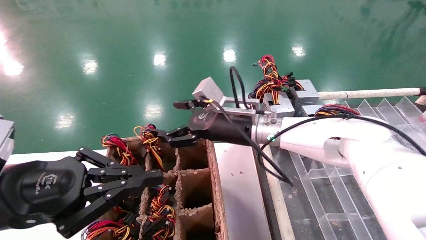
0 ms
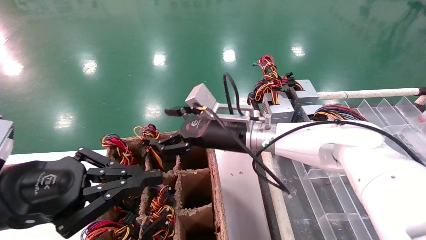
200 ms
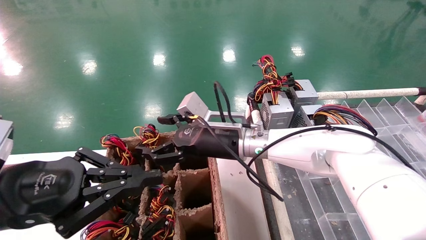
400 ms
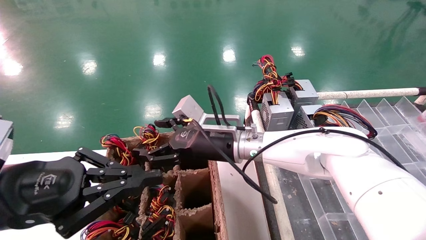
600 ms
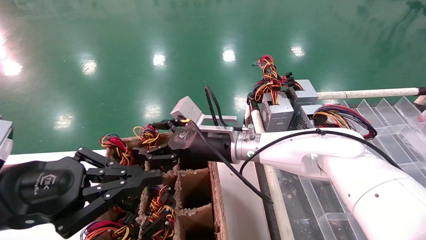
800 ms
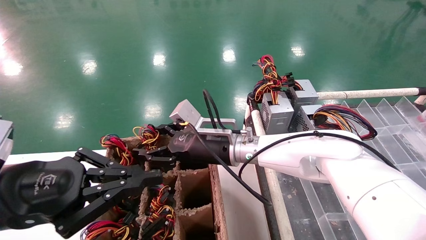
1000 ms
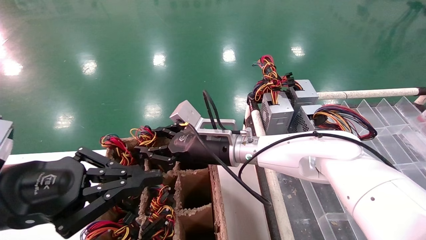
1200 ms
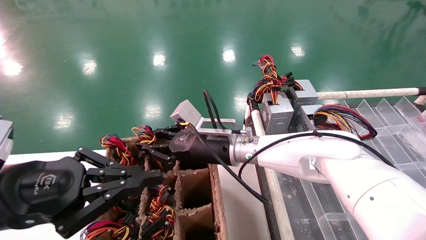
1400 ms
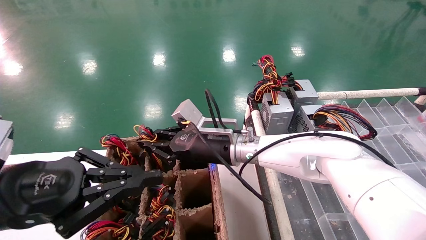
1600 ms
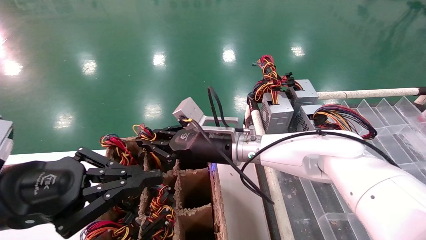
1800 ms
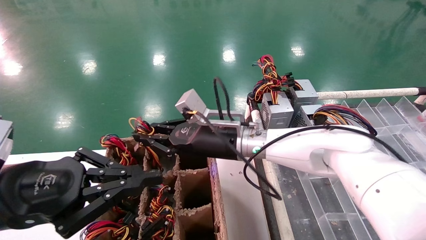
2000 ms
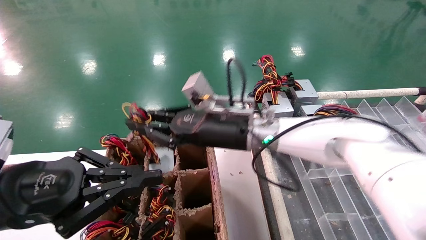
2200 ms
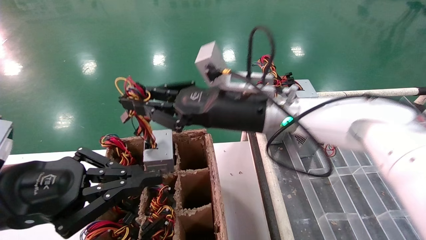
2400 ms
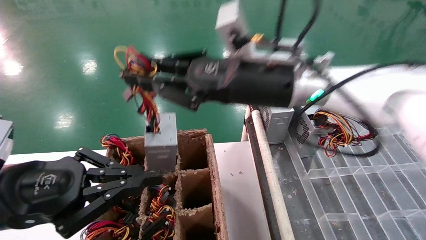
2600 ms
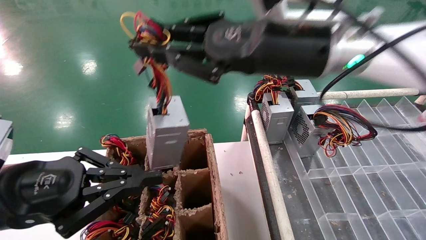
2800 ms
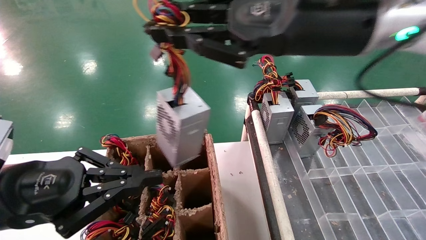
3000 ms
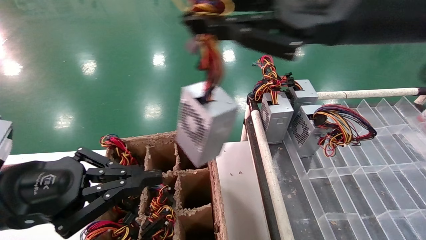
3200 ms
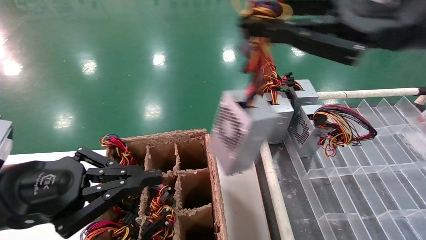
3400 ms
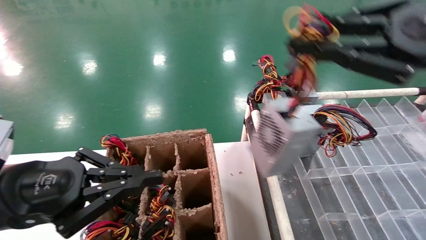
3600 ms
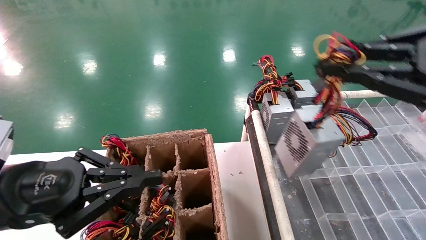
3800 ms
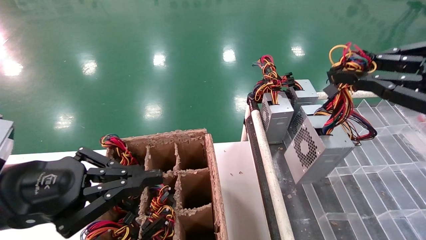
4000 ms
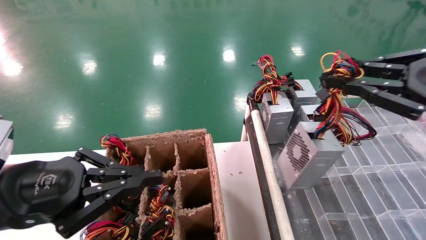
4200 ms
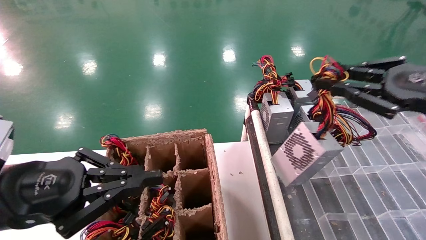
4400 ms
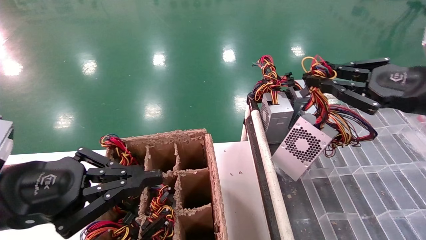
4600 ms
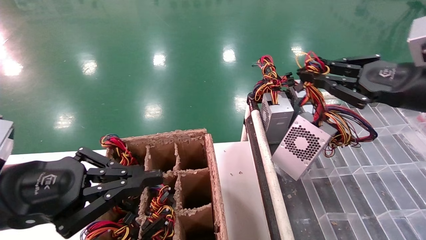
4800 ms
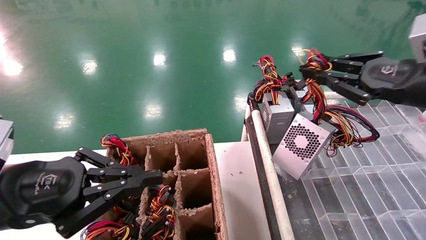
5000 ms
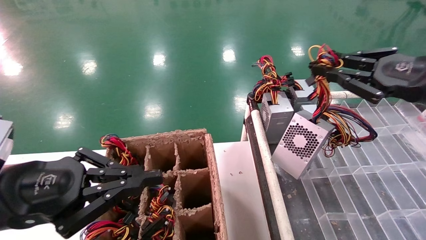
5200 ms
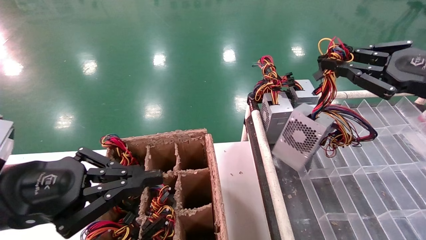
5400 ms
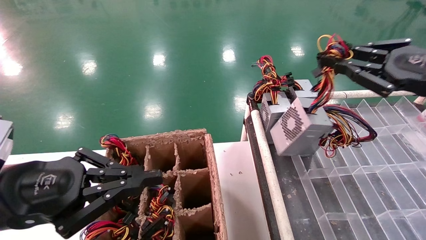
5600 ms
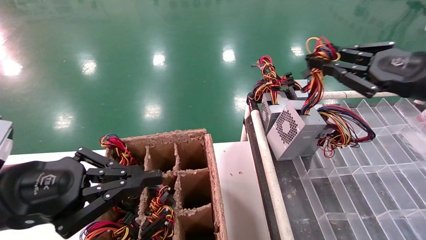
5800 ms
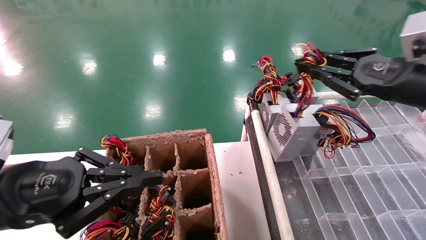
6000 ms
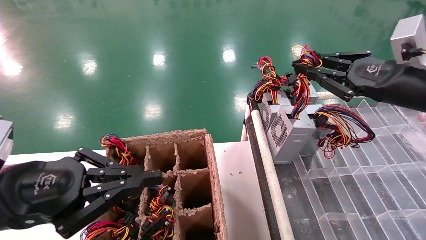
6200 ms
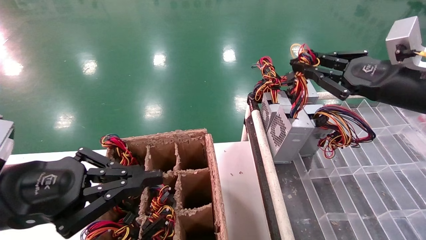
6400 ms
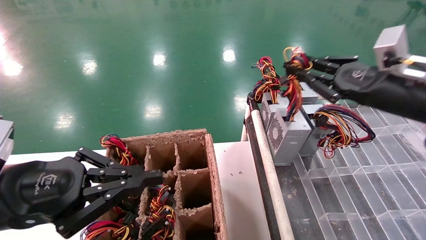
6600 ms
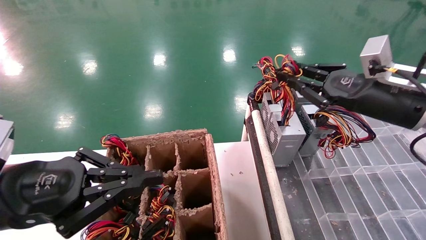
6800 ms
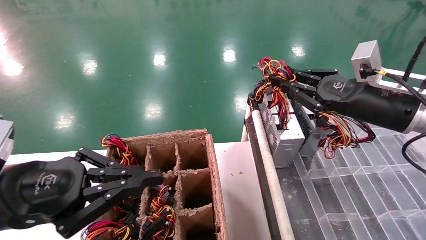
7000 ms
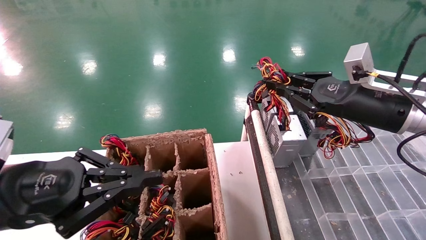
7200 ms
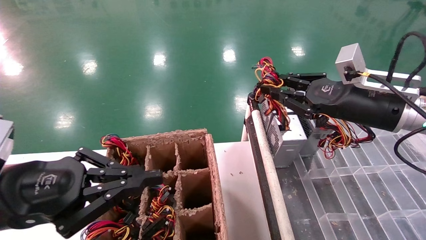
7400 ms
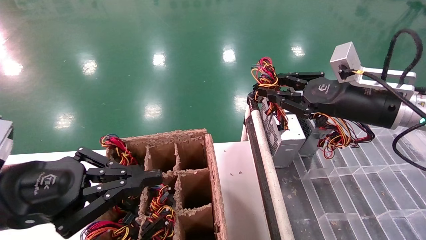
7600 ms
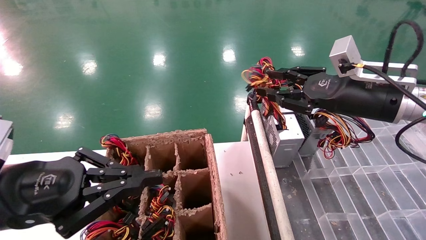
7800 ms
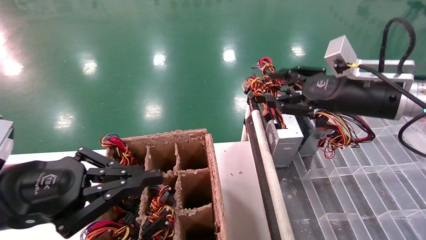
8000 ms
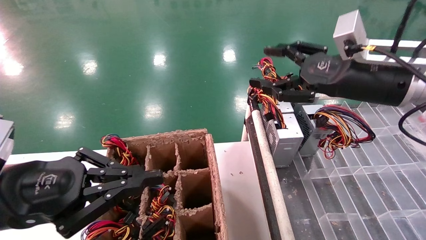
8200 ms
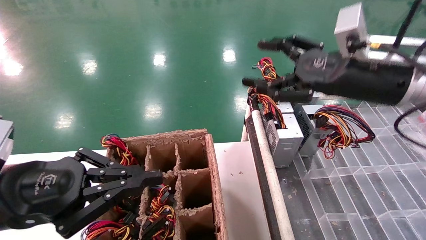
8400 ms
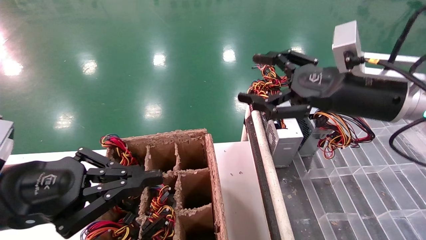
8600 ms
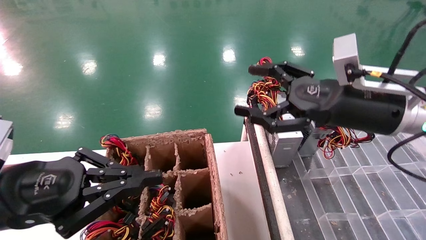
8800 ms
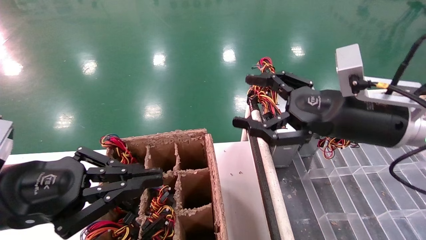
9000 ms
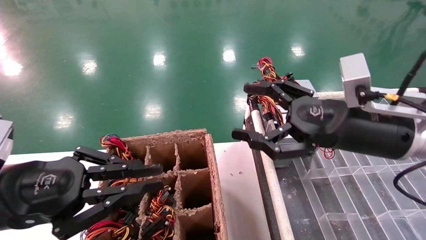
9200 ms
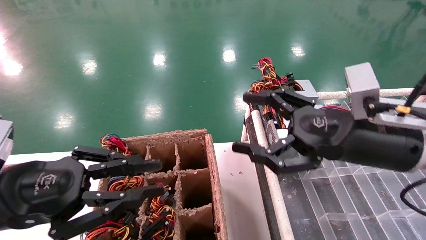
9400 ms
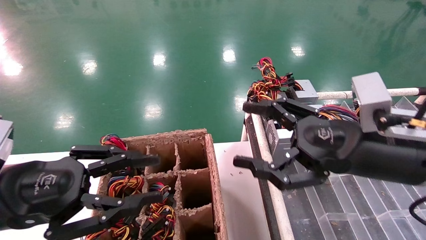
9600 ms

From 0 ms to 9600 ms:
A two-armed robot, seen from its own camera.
Step, from 0 ms to 1600 ms: Grab the main unit power supply from the containment box.
Step, from 1800 ms to 7600 ms: Place the main unit power supply in the designated area.
From 0 ms to 1600 ms: The right gripper changes place by about 5 cm, and closes its fingers.
From 1600 ms to 3200 ms: The right gripper goes about 35 cm upward, to the right and backward.
From 3200 ms to 4800 ms: The right gripper shifts approximately 20 cm to the right and downward.
From 4800 ms to 6400 ms: The grippers stay close to where they were, moving slightly.
From 6400 ms to 8000 ms: The right gripper goes roughly 5 cm to the left, and opens its fingers.
From 8000 ms to 9600 ms: The right gripper shifts about 10 cm backward and downward, and opens up.

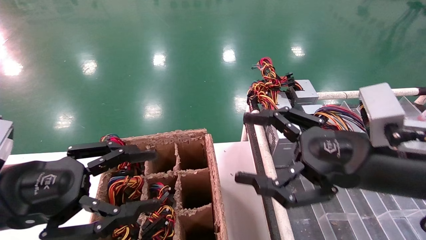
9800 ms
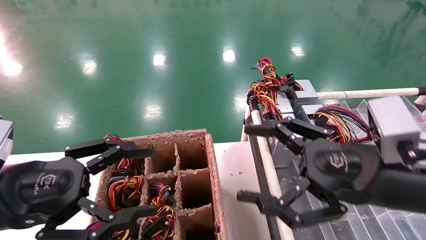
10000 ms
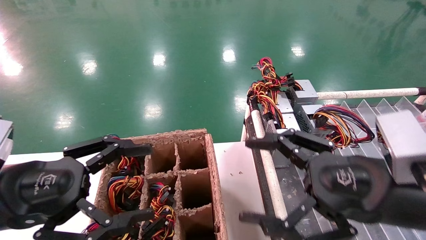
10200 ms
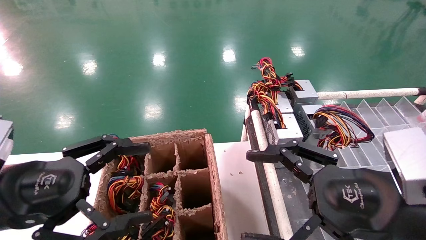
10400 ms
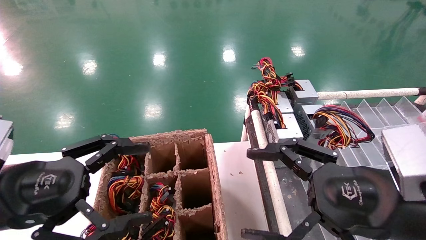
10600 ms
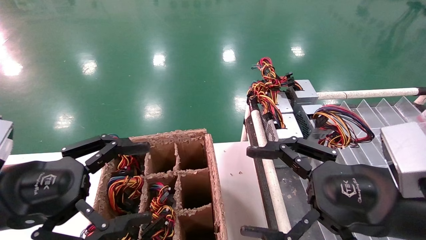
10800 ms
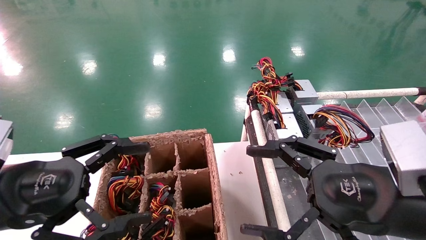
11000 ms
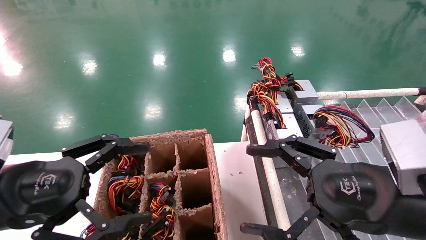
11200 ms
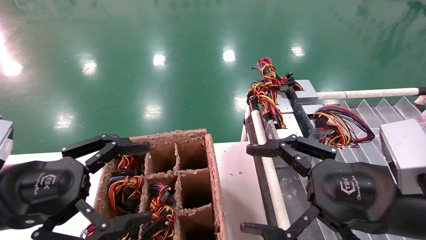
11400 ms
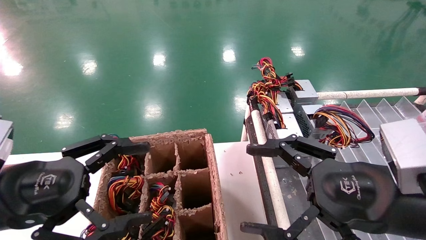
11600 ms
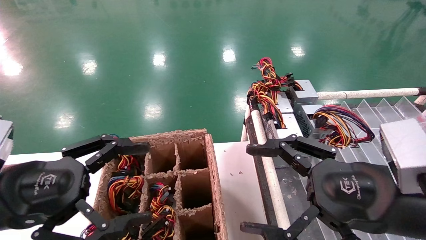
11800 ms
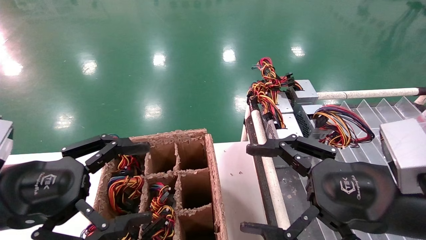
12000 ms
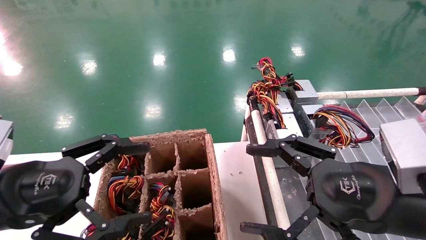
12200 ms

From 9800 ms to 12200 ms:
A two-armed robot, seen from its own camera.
From 9800 ms to 11000 ms: The left gripper opens. The right gripper travels backward by approximately 5 cm.
From 11000 ms to 12200 ms: Both grippers stay put.
